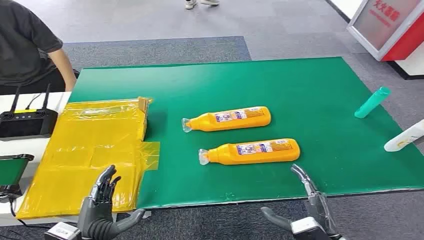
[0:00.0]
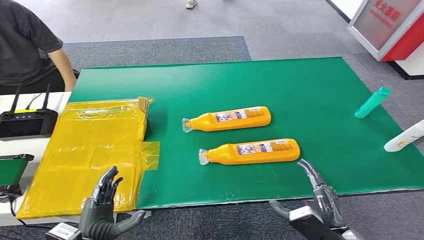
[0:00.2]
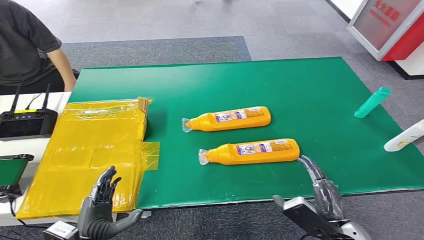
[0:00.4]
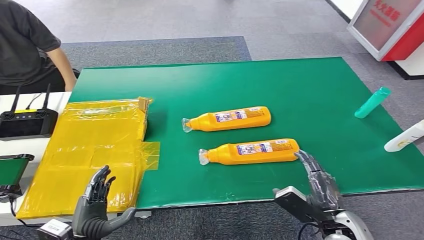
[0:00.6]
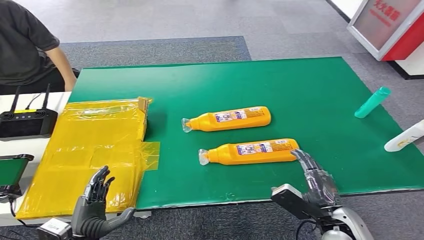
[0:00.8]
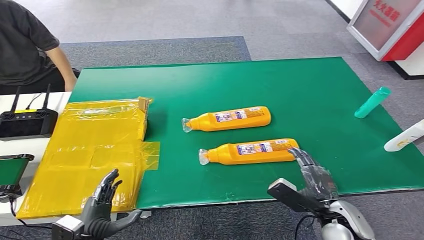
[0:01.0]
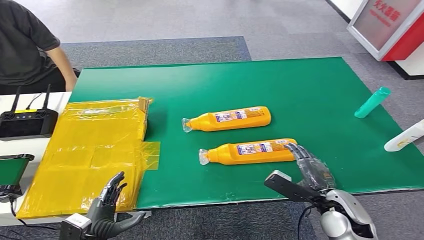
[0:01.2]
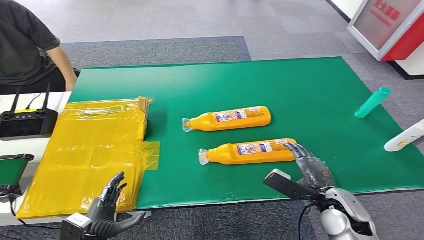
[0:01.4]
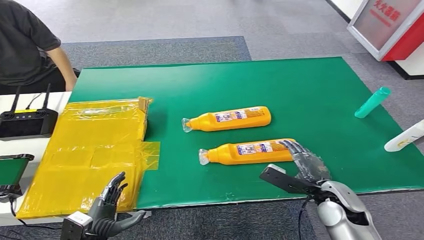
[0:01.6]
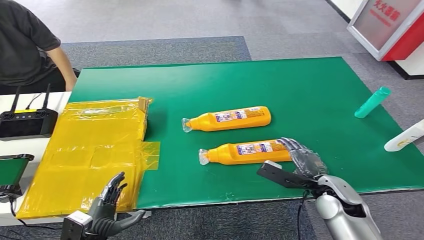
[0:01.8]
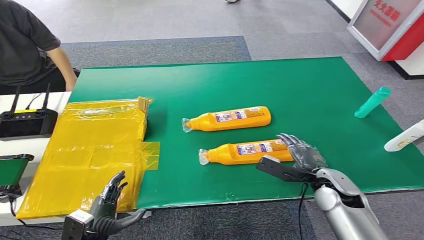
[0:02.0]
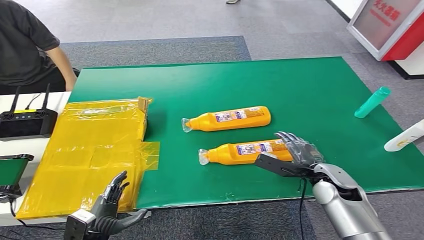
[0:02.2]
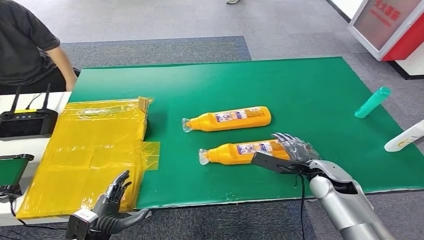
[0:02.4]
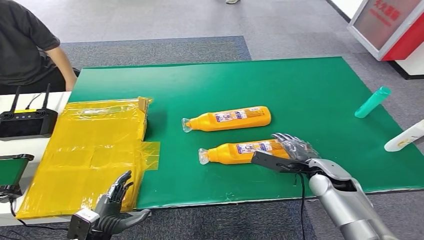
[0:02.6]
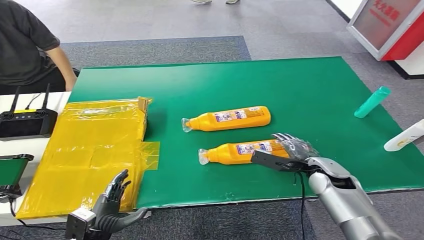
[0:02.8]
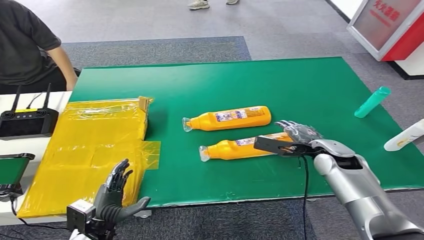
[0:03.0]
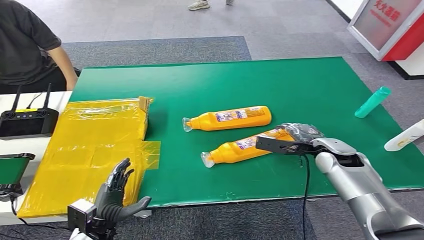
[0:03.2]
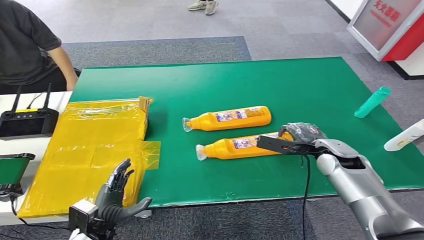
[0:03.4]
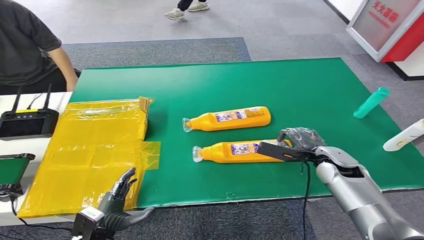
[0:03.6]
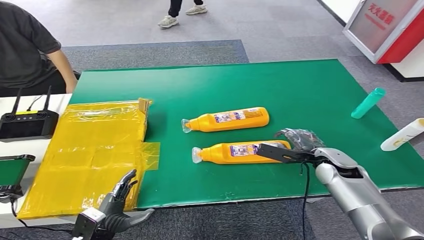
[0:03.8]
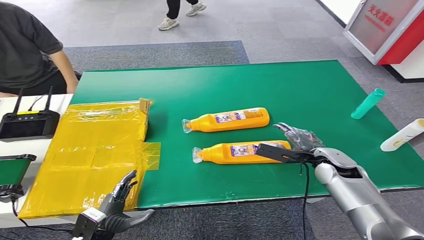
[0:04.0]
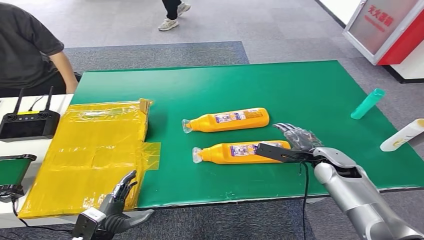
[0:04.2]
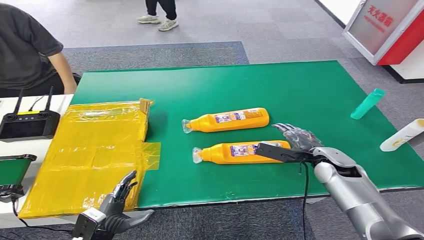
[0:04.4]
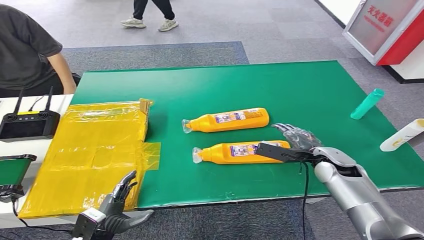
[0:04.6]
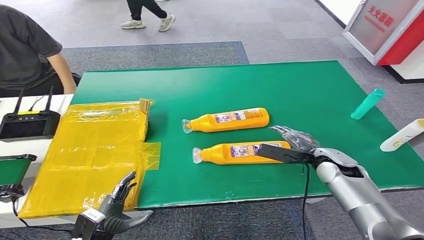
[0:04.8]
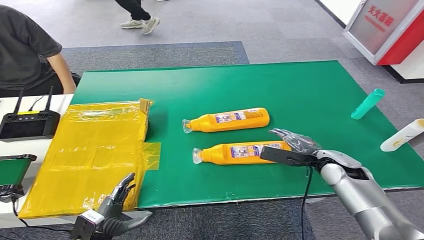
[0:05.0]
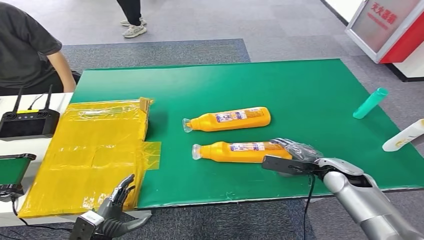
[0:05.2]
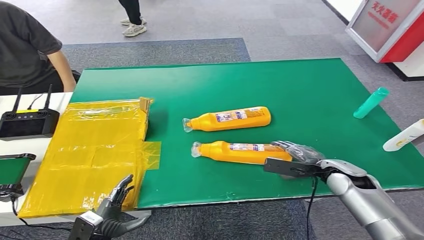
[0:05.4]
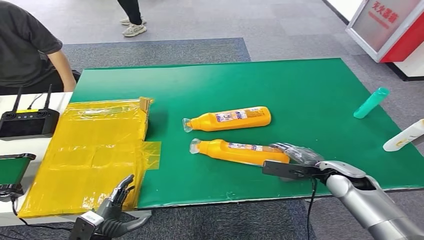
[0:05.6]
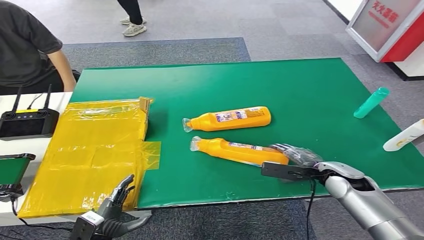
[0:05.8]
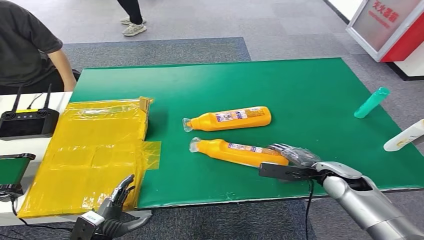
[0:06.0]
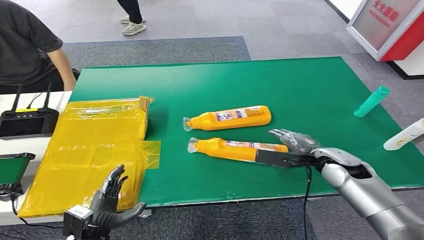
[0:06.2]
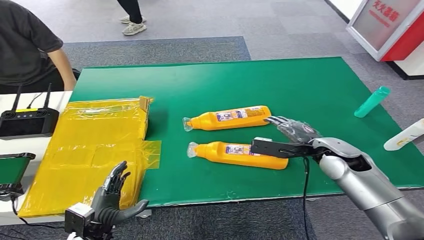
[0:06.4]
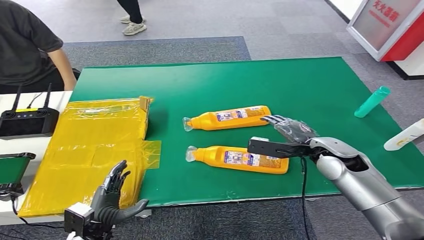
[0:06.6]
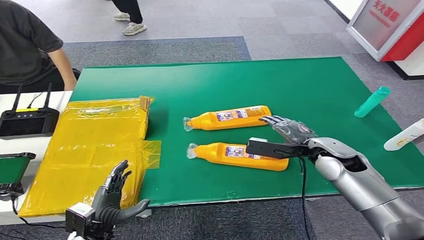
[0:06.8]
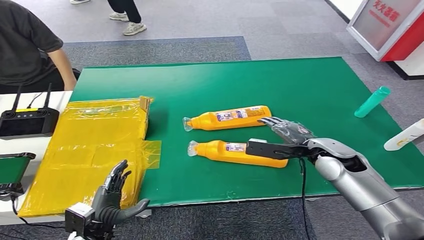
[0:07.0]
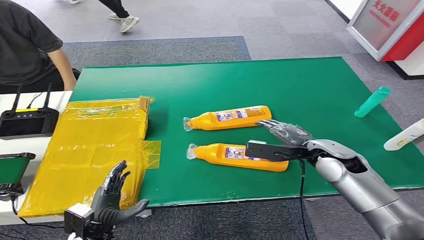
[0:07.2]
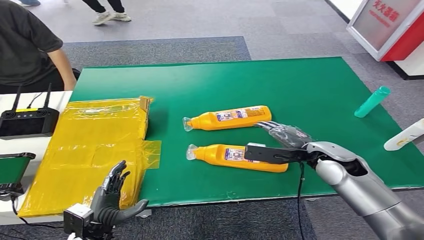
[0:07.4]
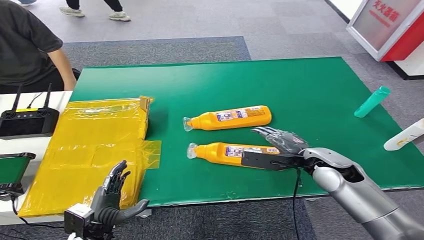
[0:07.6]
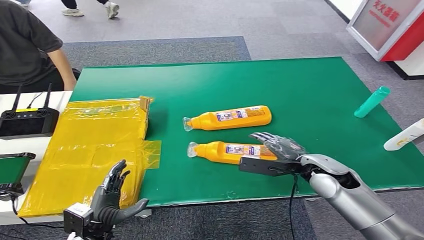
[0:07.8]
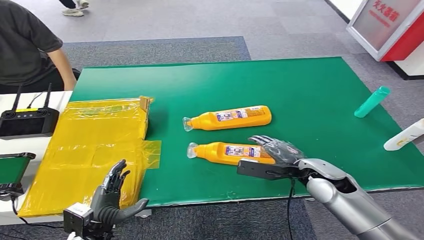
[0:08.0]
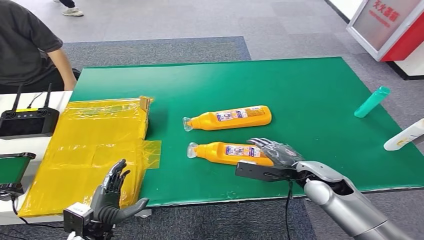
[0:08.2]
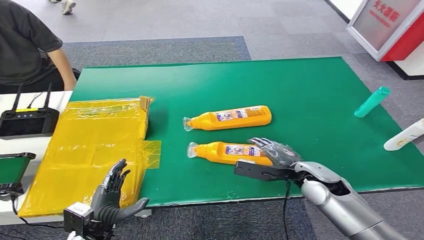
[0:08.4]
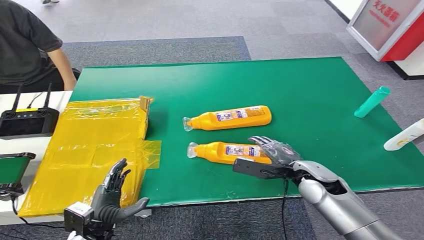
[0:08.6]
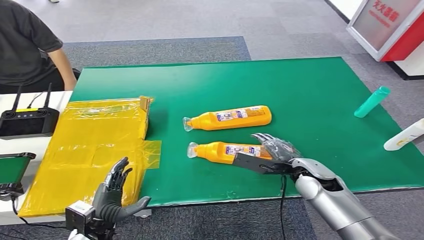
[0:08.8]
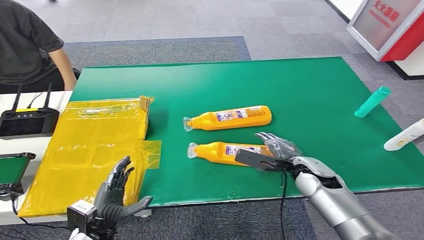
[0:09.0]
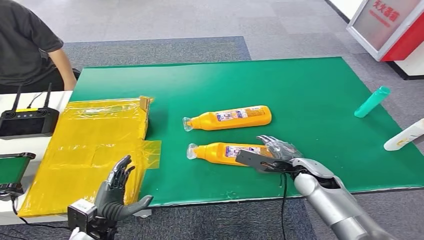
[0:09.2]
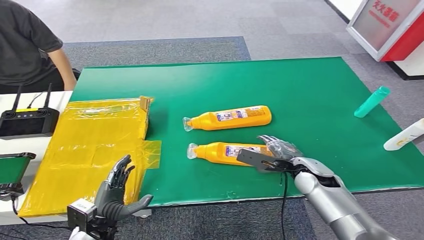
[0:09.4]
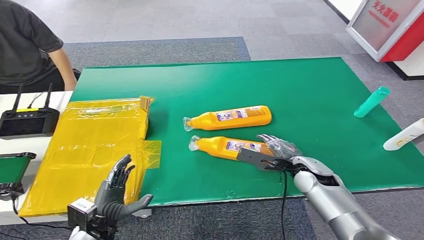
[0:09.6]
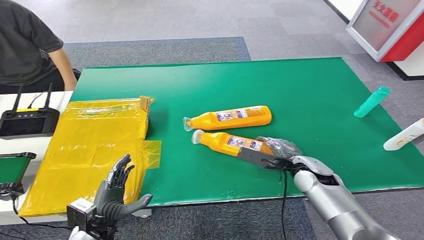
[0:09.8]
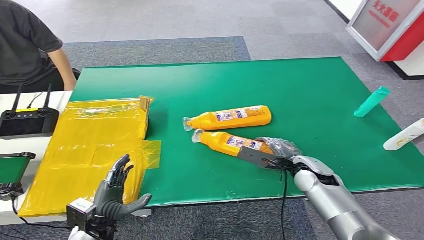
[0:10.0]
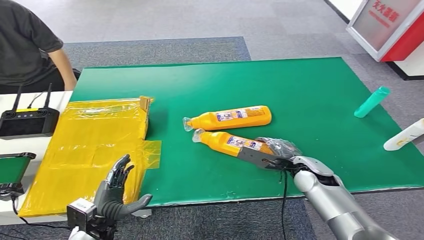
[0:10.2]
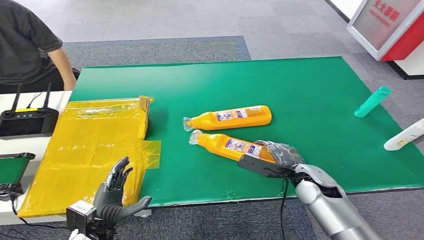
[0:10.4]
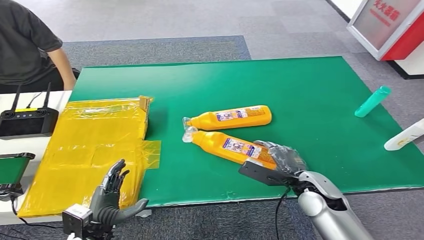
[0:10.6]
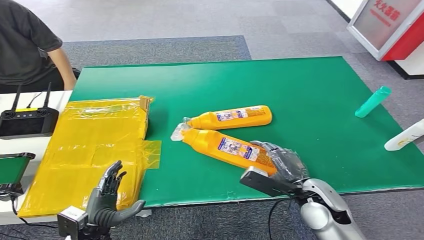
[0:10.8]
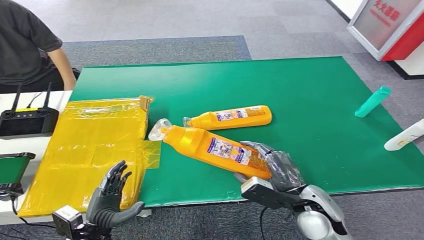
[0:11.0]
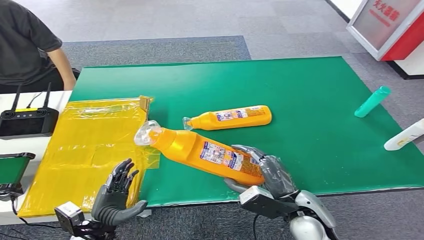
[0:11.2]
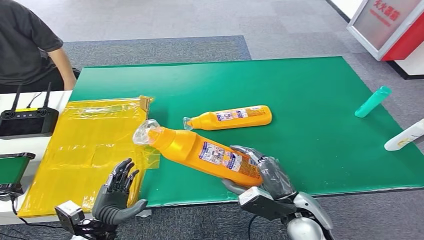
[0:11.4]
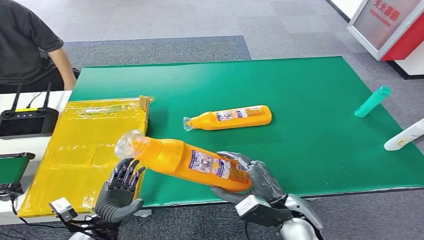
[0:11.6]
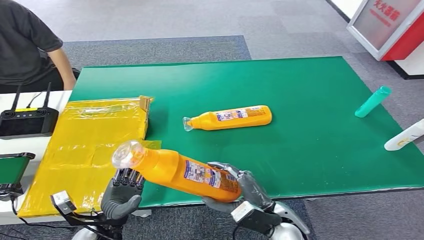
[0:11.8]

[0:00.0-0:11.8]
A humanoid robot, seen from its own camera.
Step, 0:00.0 to 0:11.0: Pick up the bottle from the table.
0:01.4 to 0:03.0: The right hand moves forward, about 15 cm.
0:06.0 to 0:07.4: The right hand travels upward by roughly 5 cm.
0:07.4 to 0:08.8: The right hand heads downward, covering about 5 cm.
0:08.8 to 0:10.4: The hands move only a little.
0:10.4 to 0:11.8: The right hand is displaced backward and to the left by approximately 15 cm.

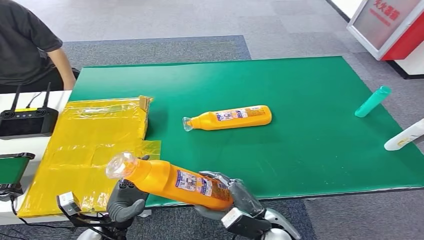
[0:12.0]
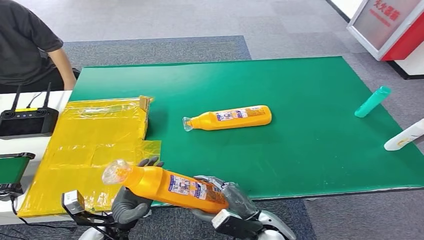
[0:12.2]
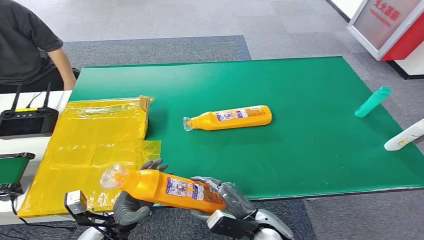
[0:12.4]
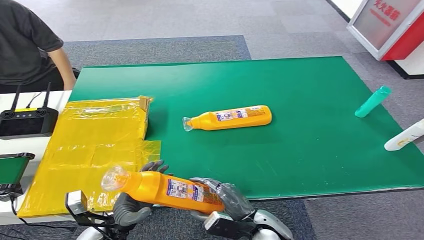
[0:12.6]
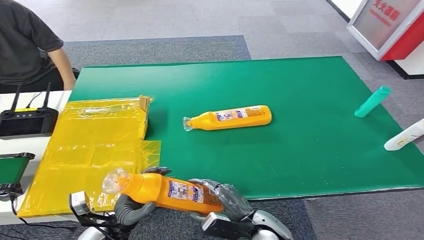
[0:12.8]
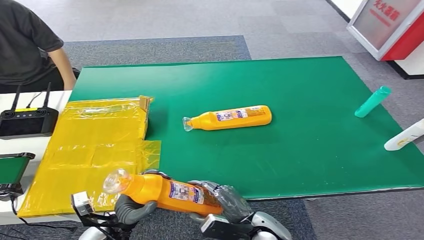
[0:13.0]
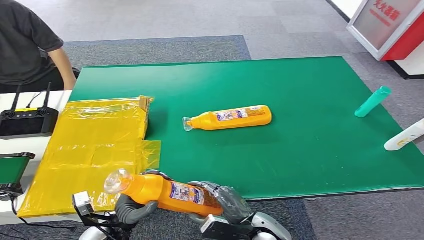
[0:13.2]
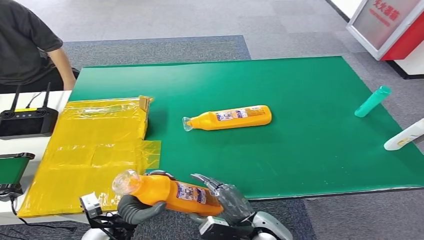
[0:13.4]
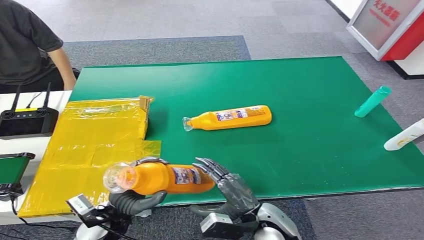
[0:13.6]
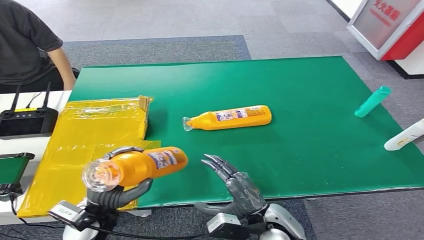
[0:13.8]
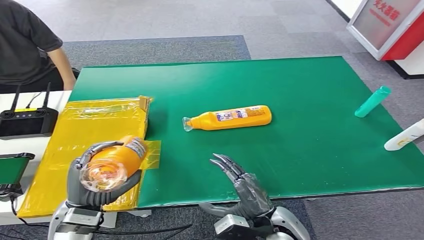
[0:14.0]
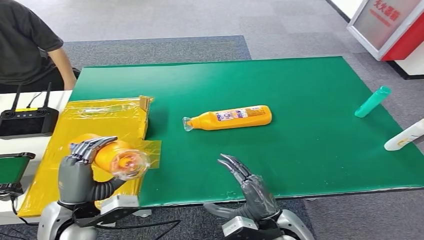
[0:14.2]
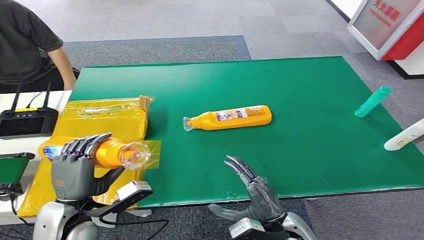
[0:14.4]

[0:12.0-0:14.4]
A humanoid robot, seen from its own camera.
Step, 0:12.0 to 0:14.4: Turn the bottle to the front side.
0:12.0 to 0:13.2: There are only small adjustments of the hands.
0:13.2 to 0:14.4: The right hand heads upward, covering some 5 cm. Meanwhile the left hand travels upward by about 15 cm.
